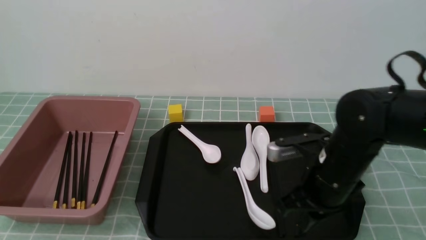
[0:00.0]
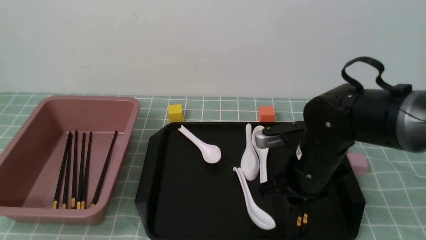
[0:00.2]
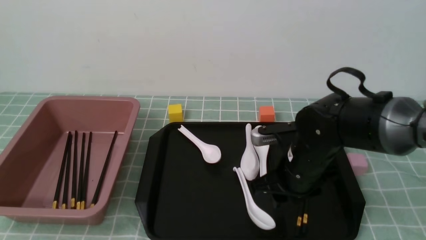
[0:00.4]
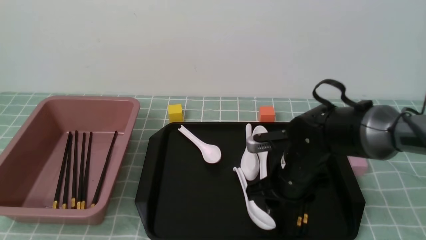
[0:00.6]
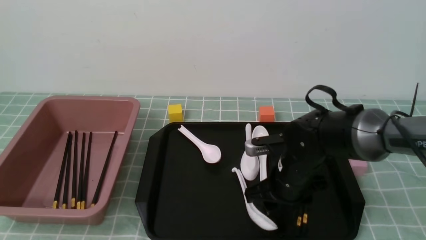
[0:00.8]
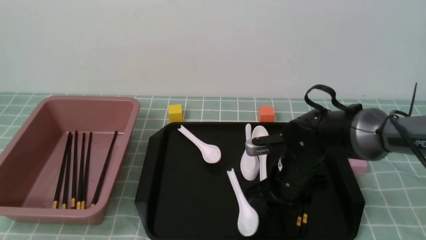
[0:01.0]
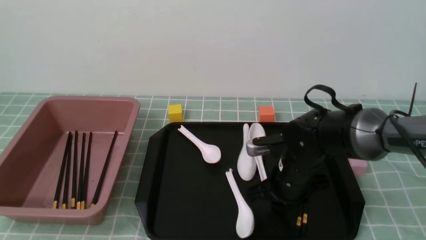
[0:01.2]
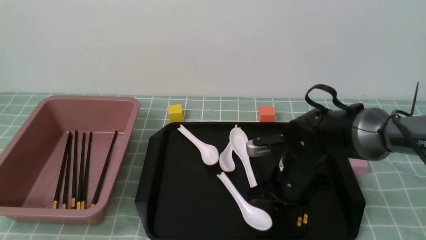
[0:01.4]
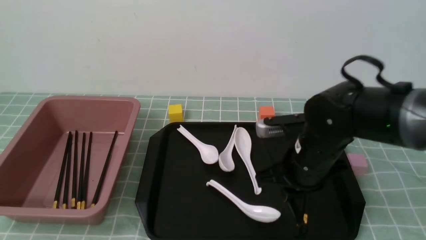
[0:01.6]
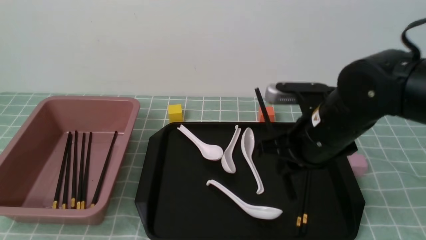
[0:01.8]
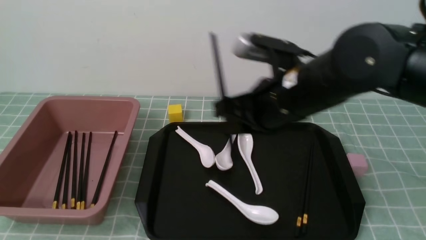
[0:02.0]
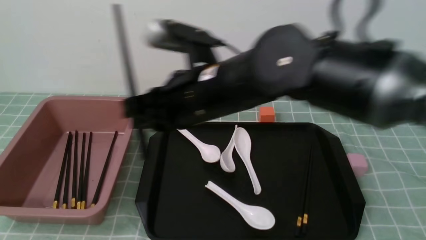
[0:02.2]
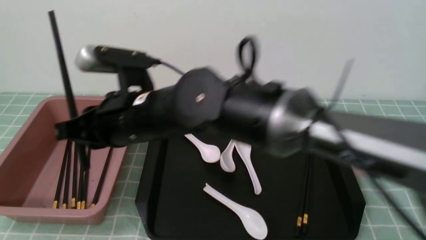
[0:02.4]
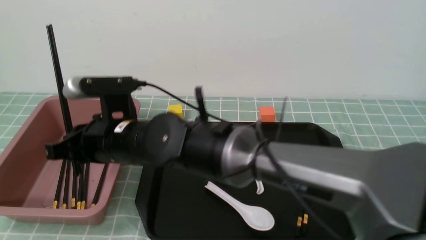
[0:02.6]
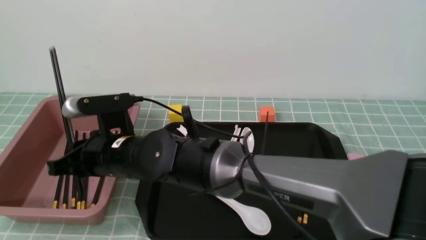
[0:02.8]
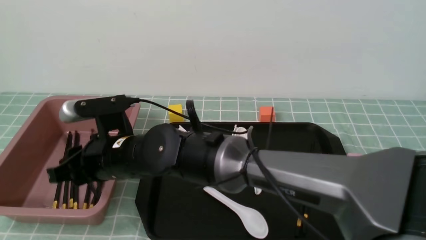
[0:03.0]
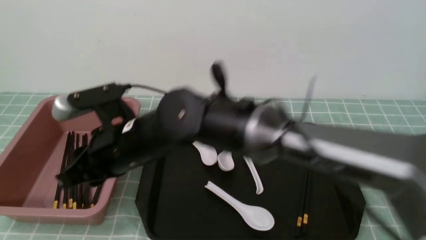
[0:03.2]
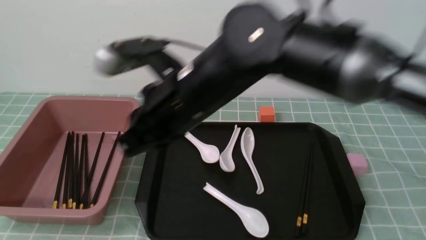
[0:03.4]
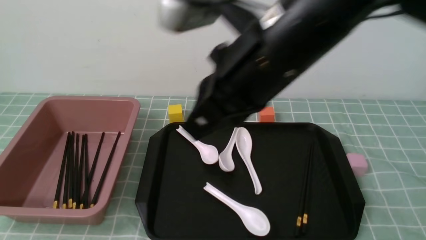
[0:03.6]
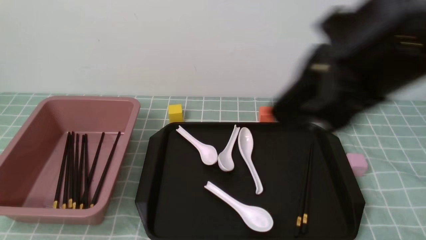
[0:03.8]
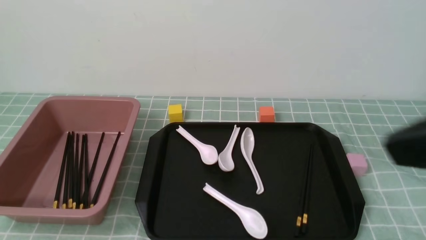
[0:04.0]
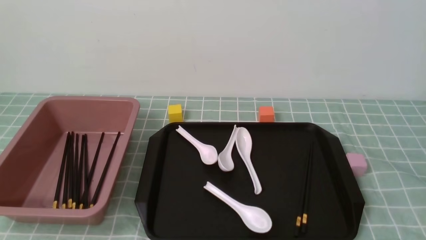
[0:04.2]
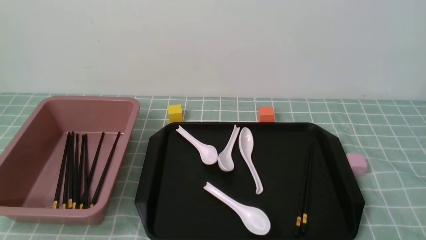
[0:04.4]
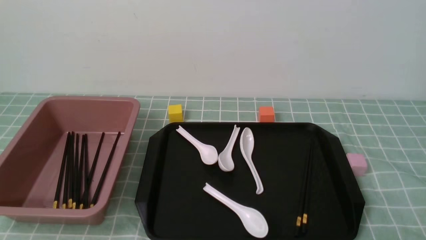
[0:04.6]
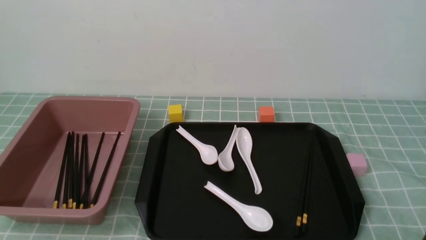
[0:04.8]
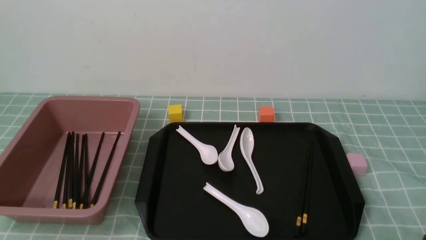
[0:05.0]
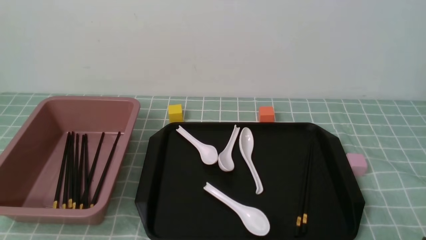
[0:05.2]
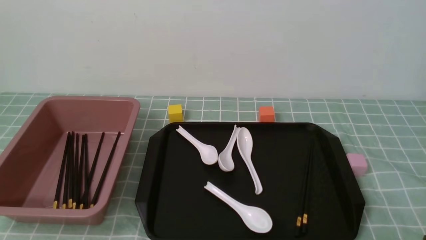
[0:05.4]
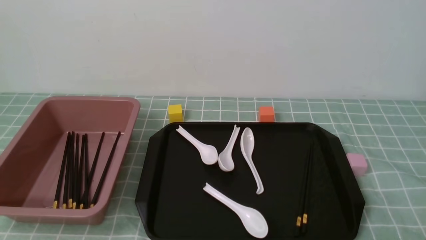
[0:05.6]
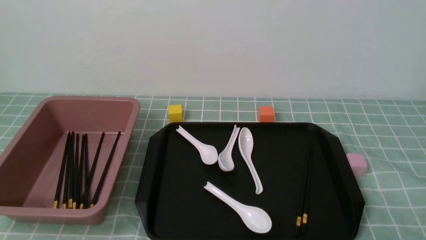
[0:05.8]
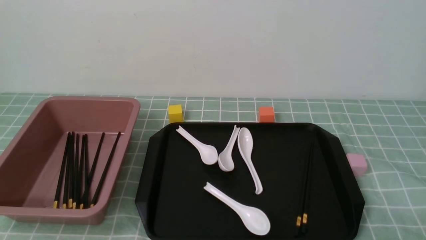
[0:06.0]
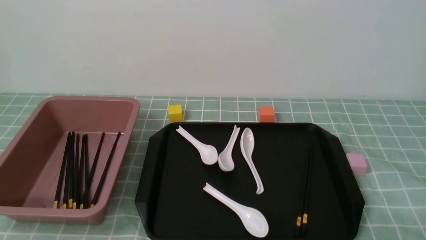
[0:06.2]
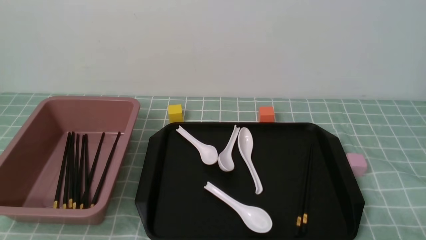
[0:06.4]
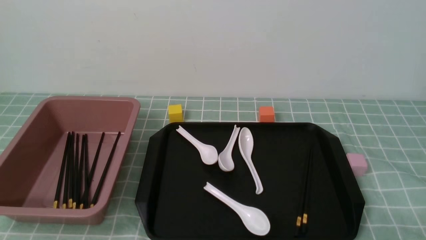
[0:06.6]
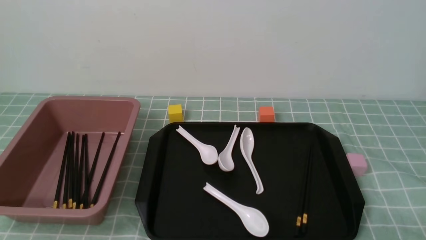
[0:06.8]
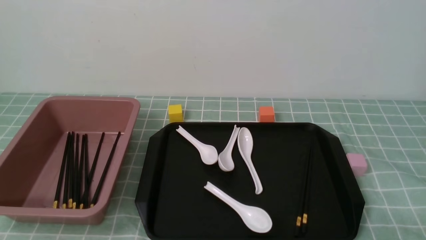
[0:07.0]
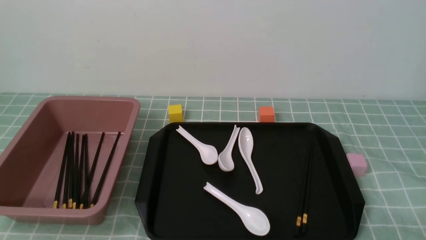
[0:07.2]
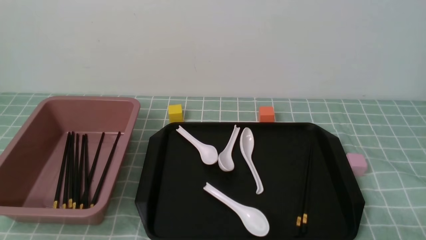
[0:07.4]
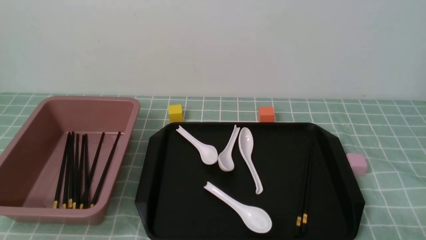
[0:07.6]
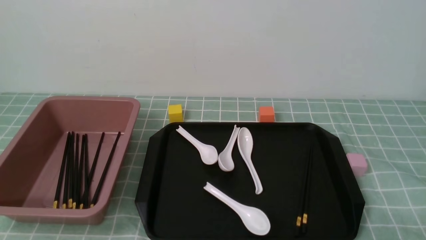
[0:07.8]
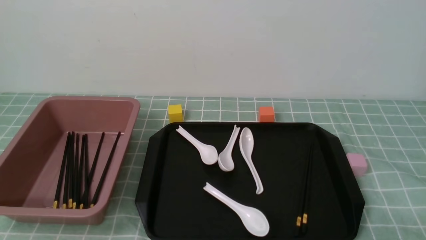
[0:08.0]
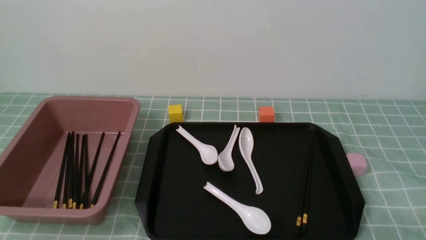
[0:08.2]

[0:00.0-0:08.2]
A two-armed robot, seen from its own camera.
Step, 0:02.0 to 0:03.6: use the right arm to put the chopsticks into the lunch box.
0:00.0 to 0:01.6: The right gripper opens and closes again.
0:01.6 to 0:03.2: The right gripper shifts roughly 20 cm to the left.
0:03.2 to 0:05.0: The right gripper travels to the right and backward by about 40 cm, and closes.
0:05.0 to 0:06.6: The right gripper moves downward, some 10 cm.
0:06.6 to 0:08.2: Both grippers stay about where they are.
